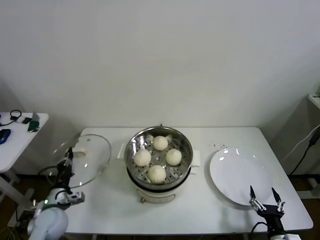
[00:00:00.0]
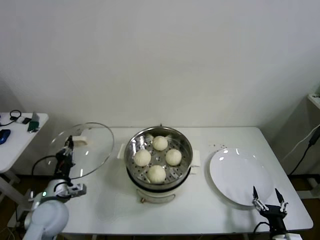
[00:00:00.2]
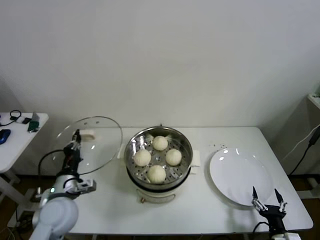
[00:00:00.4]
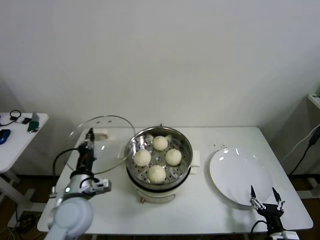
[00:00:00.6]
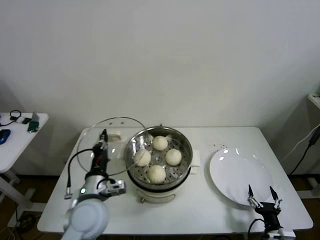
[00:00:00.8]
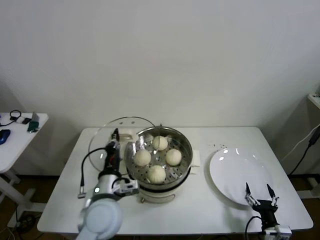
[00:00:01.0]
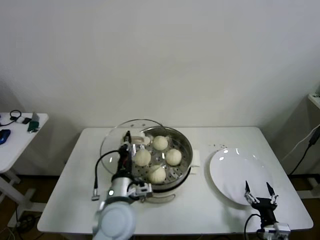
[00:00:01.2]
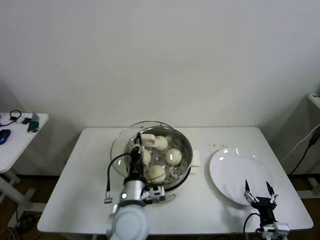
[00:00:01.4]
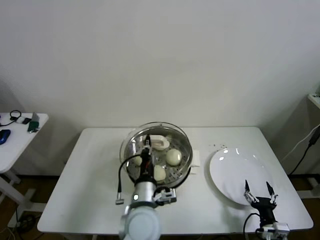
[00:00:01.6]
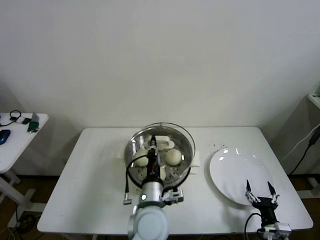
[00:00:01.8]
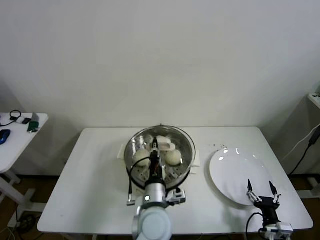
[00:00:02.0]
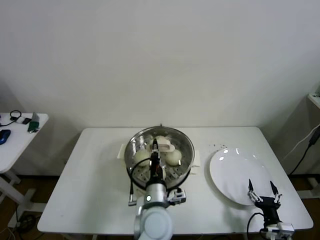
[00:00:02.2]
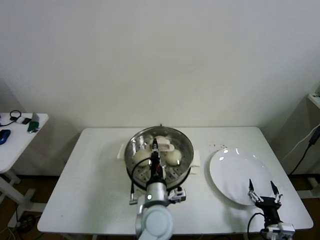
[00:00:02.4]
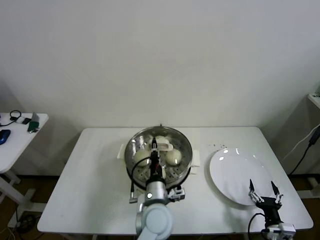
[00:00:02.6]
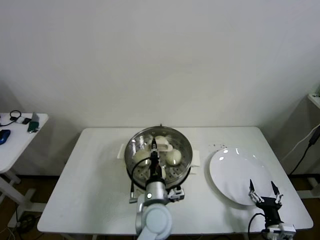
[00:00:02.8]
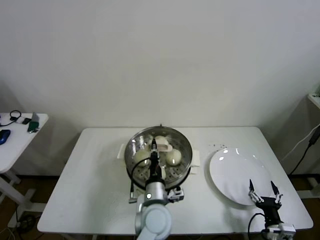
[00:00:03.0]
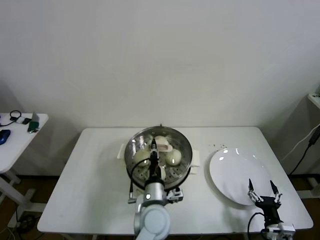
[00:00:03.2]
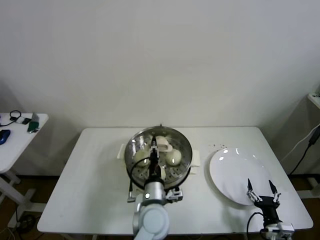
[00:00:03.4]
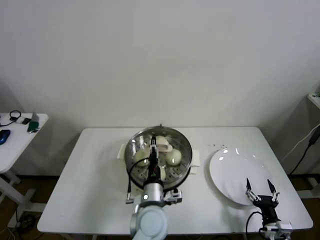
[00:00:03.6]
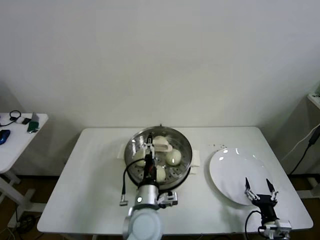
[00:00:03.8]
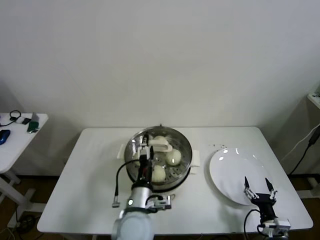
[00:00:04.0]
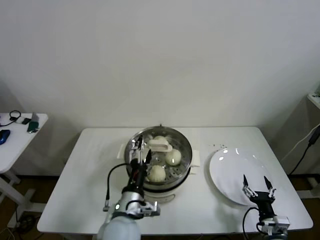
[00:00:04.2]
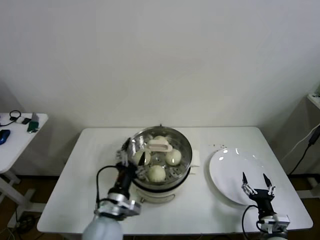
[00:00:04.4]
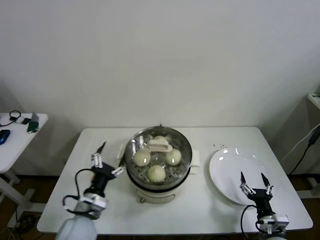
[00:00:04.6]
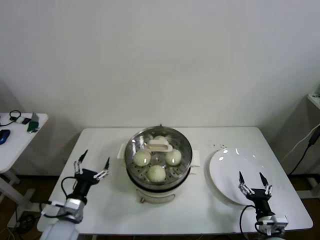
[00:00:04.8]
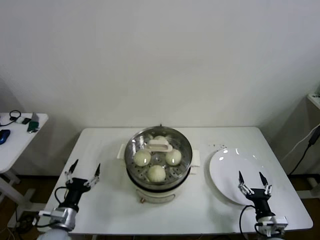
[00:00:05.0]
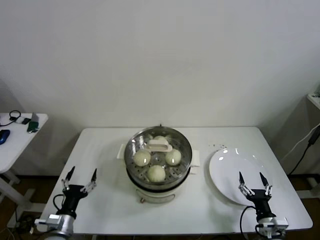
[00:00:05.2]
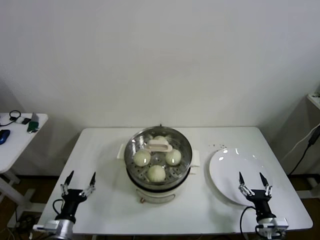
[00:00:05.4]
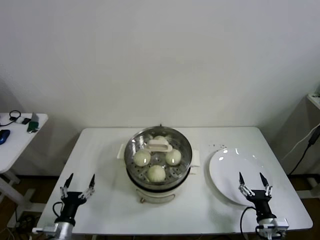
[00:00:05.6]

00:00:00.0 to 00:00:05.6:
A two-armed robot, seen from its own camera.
Step, 00:00:00.0 to 00:00:03.2: Place the pot lid on the steamer with left gripper.
00:00:00.0 to 00:00:01.4: The left gripper heads to the right and upward, covering roughly 30 cm.
00:00:01.4 to 00:00:02.8: The left gripper travels to the right and downward by some 10 cm.
00:00:02.8 to 00:00:04.2: The left gripper heads to the left, covering roughly 5 cm, and opens up.
00:00:04.2 to 00:00:05.6: The left gripper travels to the left and downward by roughly 30 cm.
